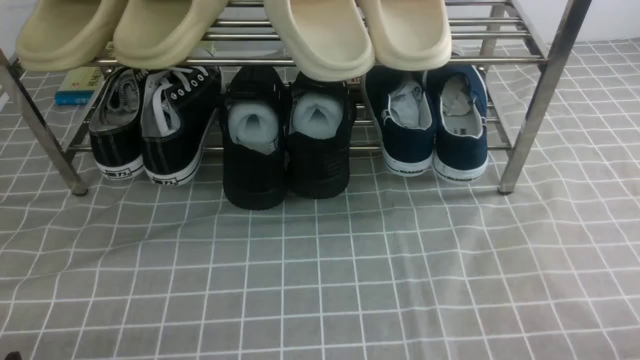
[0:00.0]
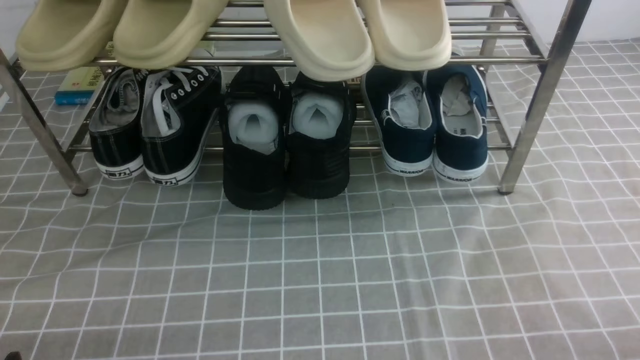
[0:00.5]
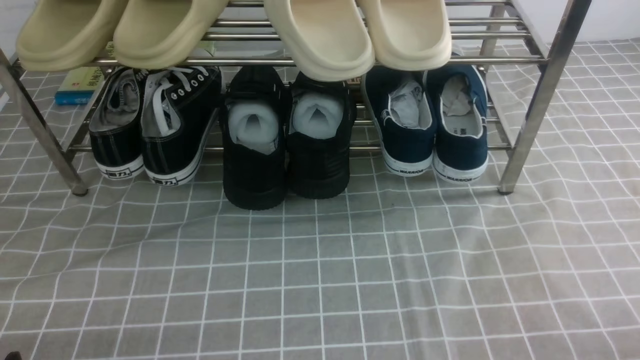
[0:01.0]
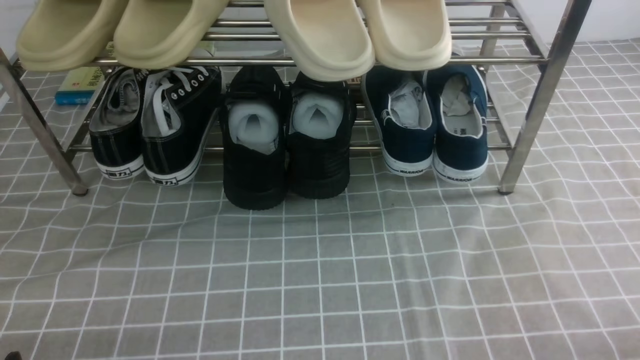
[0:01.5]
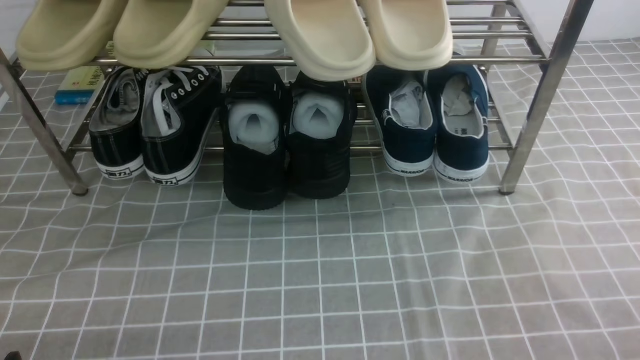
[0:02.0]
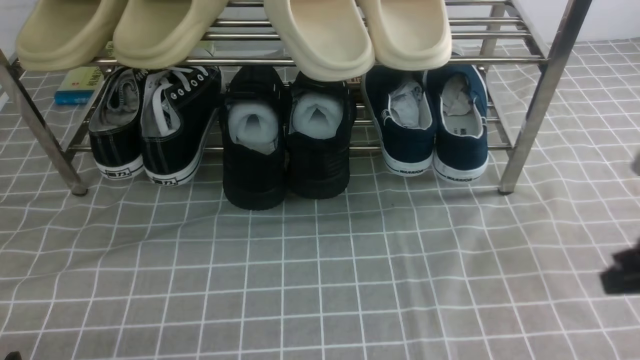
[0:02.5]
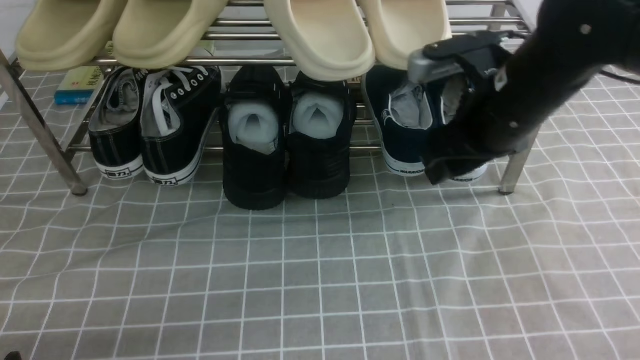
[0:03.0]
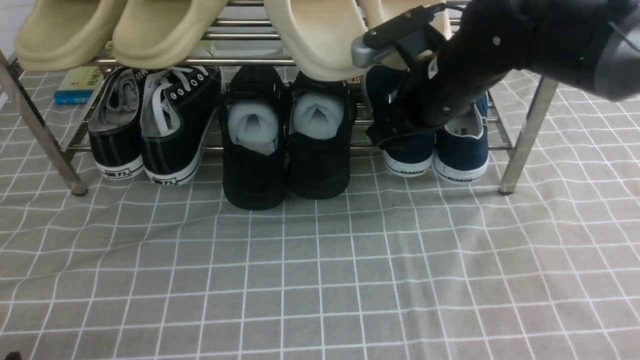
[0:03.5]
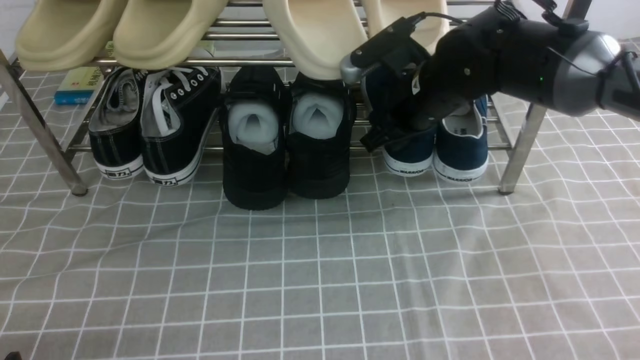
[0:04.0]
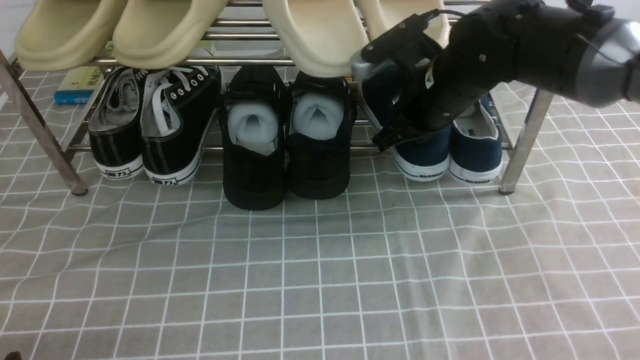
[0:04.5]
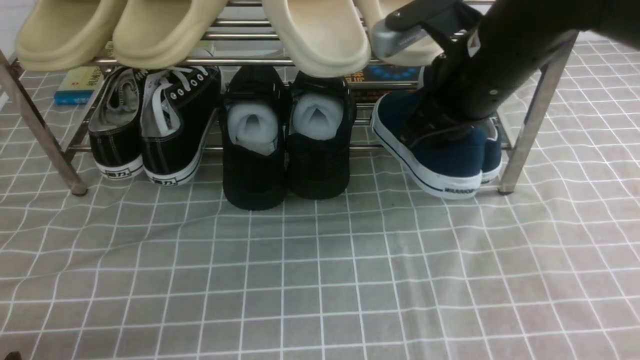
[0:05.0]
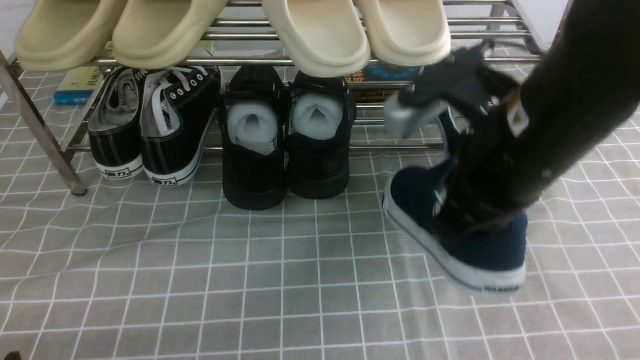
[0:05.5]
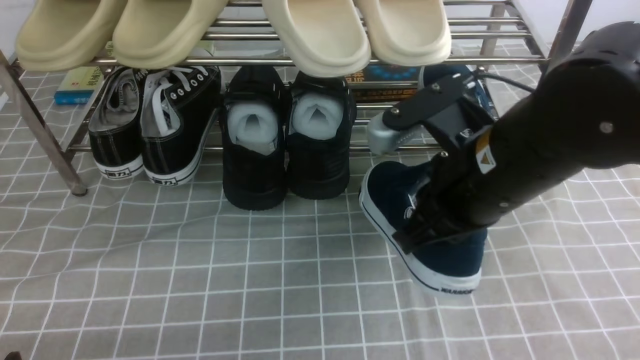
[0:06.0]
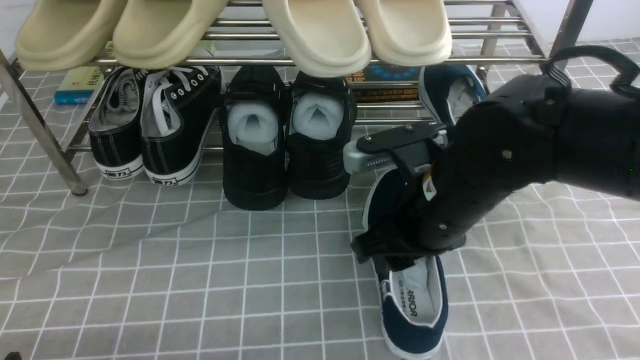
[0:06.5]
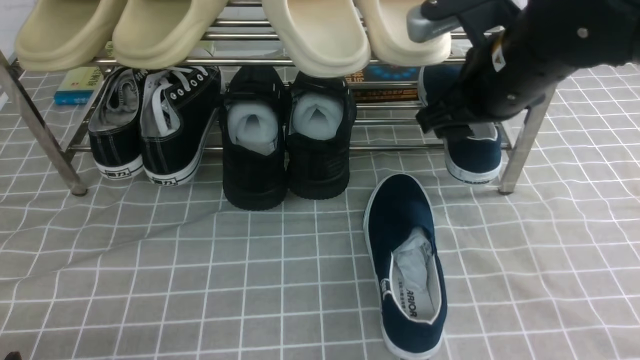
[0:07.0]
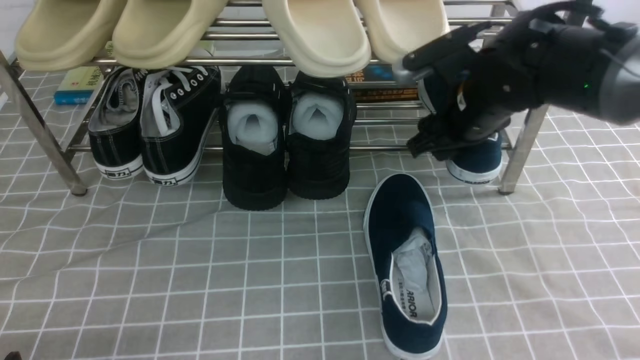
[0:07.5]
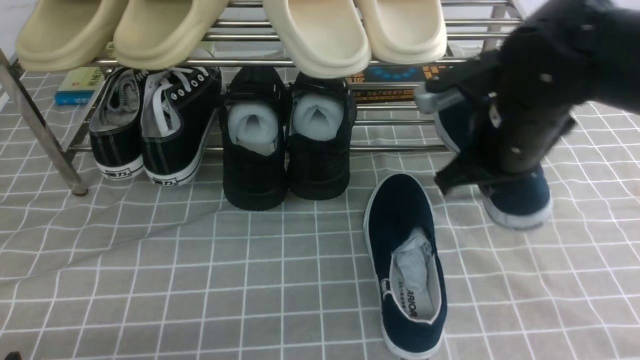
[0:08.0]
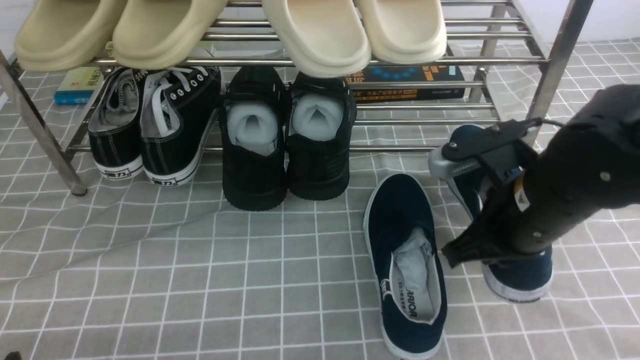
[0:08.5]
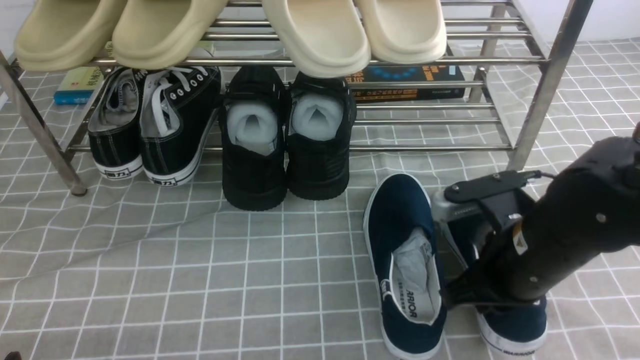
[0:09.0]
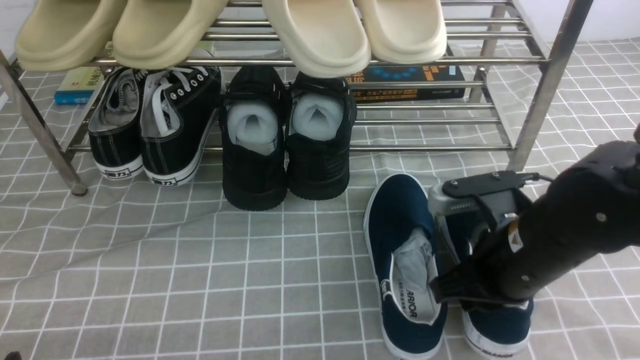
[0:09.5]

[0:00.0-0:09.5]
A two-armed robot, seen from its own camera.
Step, 0:00.0 to 0:04.5: use the right arm to clamp a shoe on the right side of the shoe rack.
Step, 0:05.0 to 0:06.5: use the right arm to take out the clamped shoe from the shoe rack and put it down.
Step, 0:07.0 to 0:07.5: use the right arm to clamp a shoe on the right side of the shoe rack.
0:00.0 to 0:02.0: The right gripper travels upward by some 5 cm.
0:02.0 to 0:04.0: The right gripper goes approximately 40 cm forward and to the left, and opens up.
0:04.0 to 0:05.5: The right gripper is displaced backward and upward by some 20 cm, and closes its fingers.
0:05.5 to 0:07.5: The right gripper heads forward and downward, covering roughly 15 cm, and opens.
0:07.5 to 0:09.5: The right gripper travels backward by some 15 cm, and closes up.

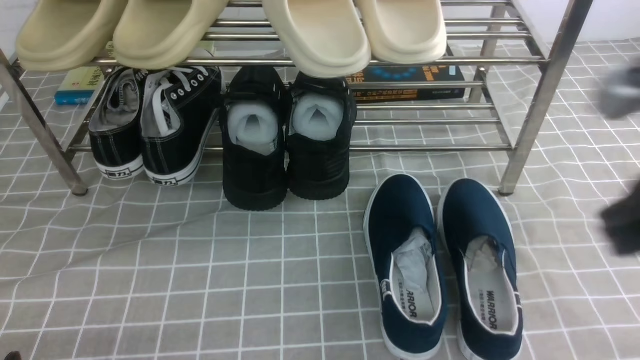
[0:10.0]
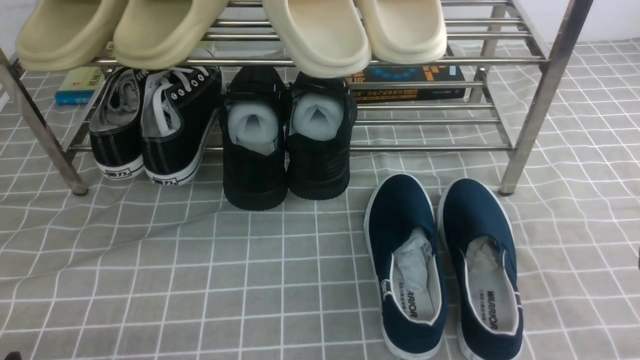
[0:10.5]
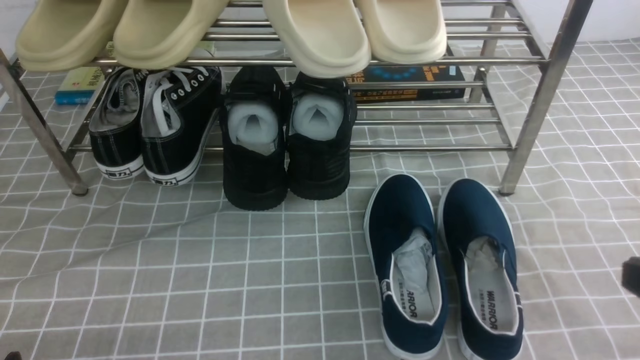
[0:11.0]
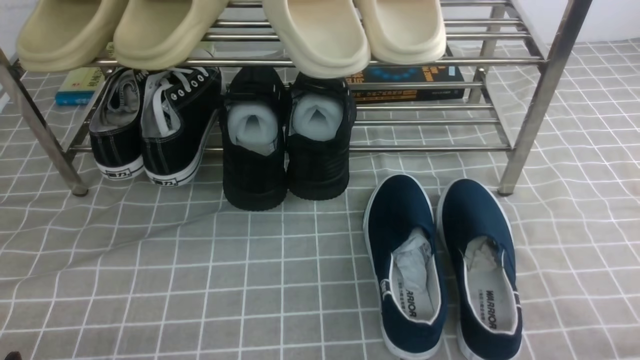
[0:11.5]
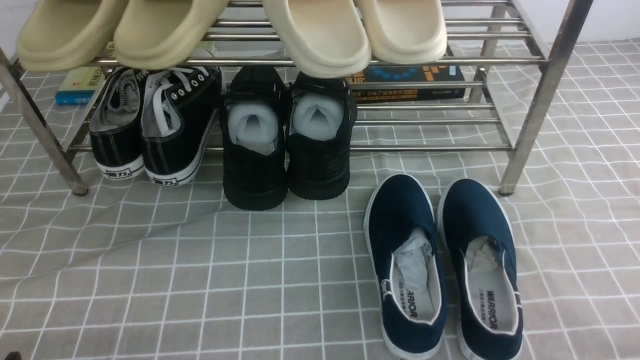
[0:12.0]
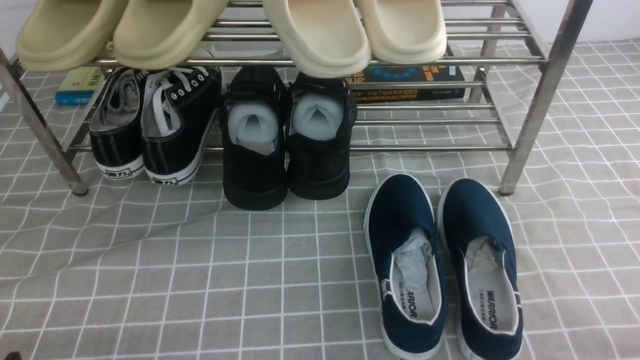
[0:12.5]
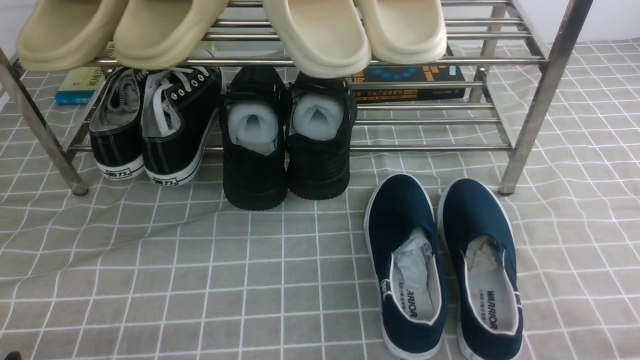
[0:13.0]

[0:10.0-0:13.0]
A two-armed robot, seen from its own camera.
0:10.0 to 0:11.5: The right gripper is displaced downward, backward and to the right by approximately 20 cm.

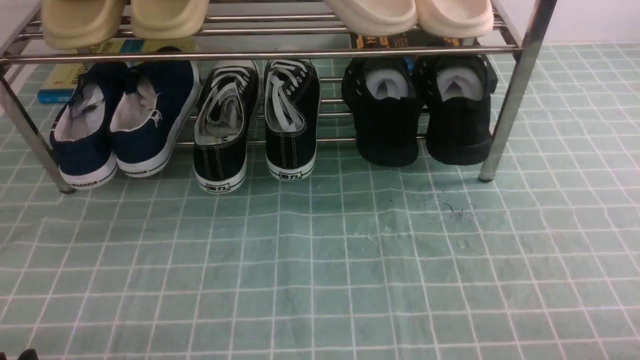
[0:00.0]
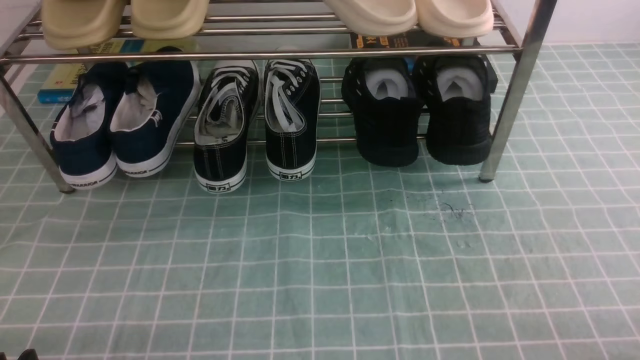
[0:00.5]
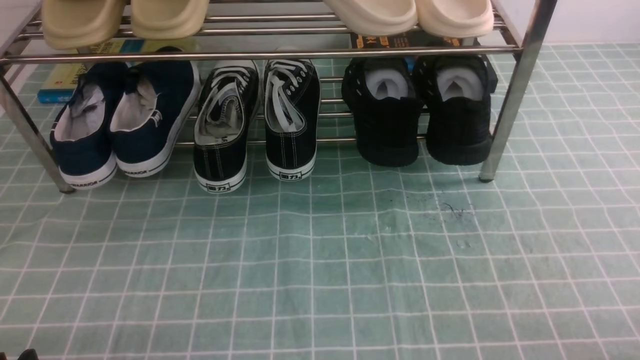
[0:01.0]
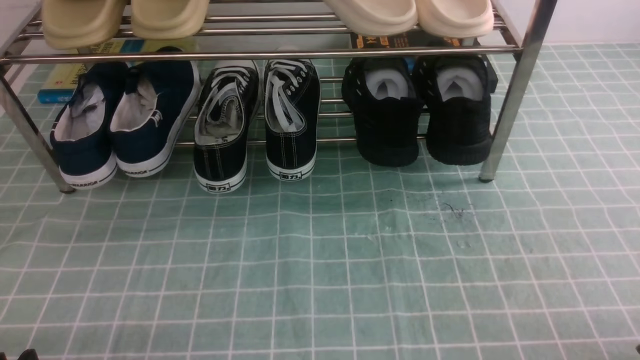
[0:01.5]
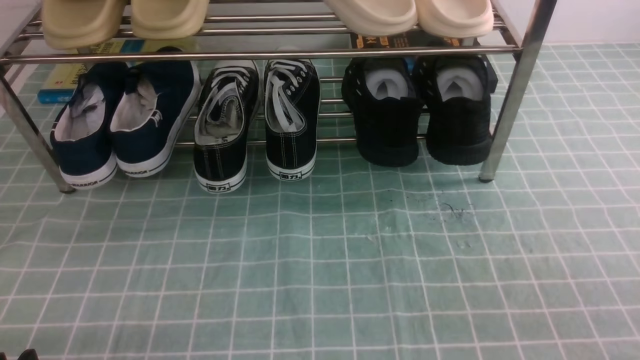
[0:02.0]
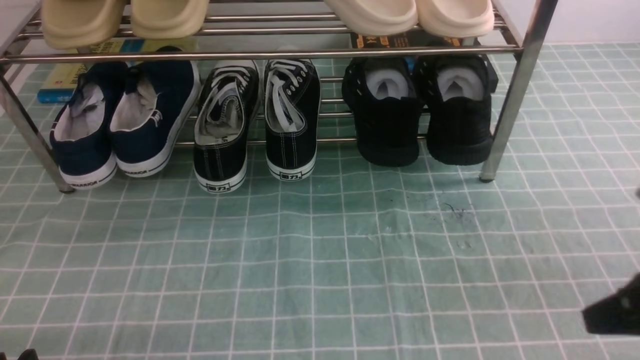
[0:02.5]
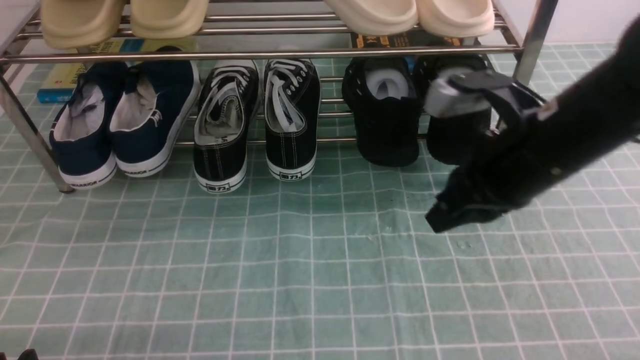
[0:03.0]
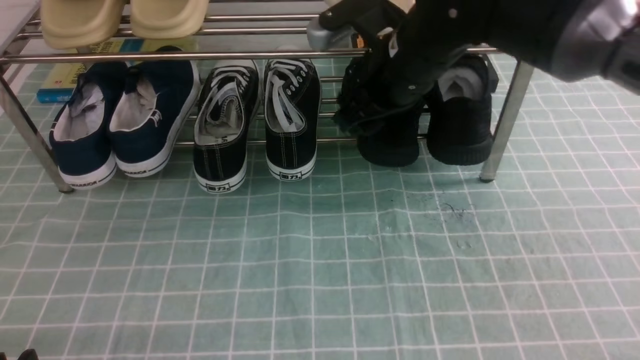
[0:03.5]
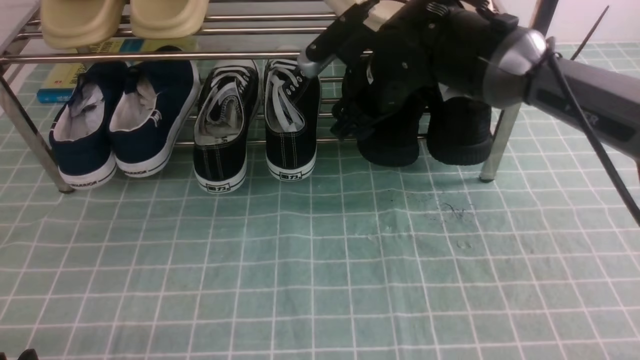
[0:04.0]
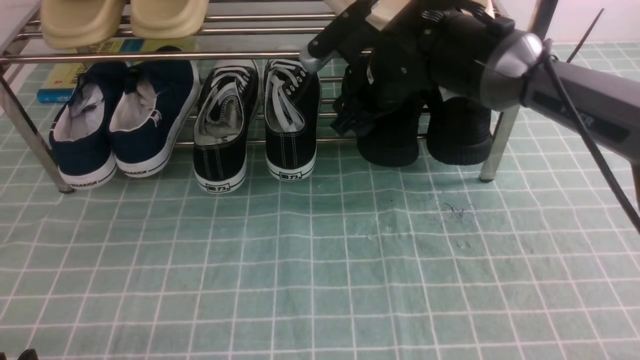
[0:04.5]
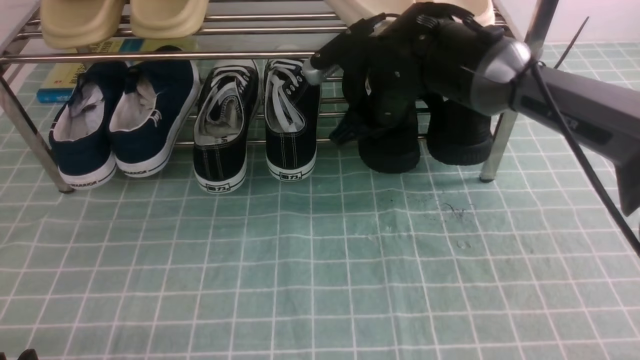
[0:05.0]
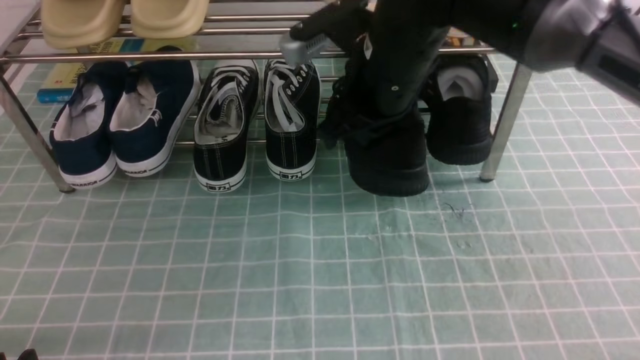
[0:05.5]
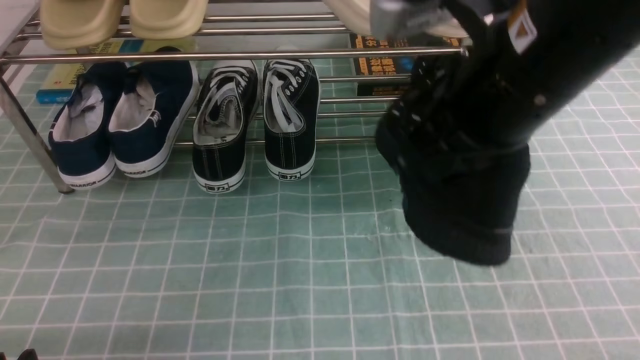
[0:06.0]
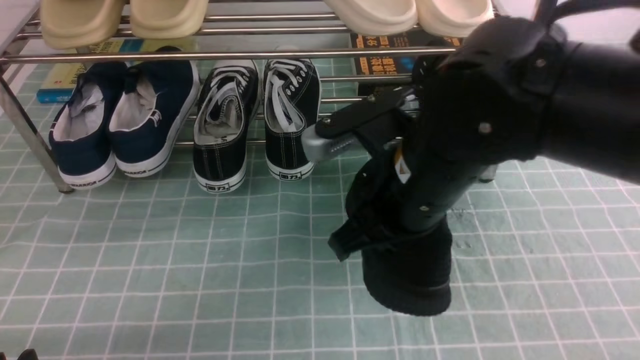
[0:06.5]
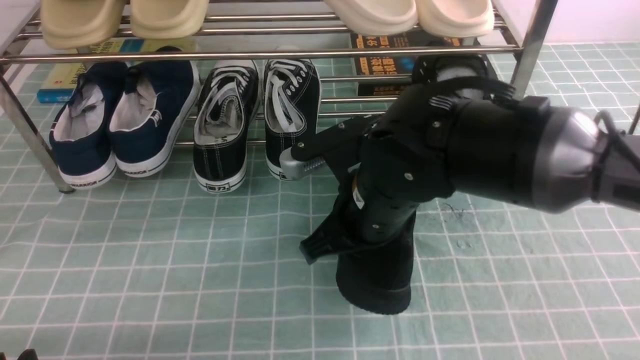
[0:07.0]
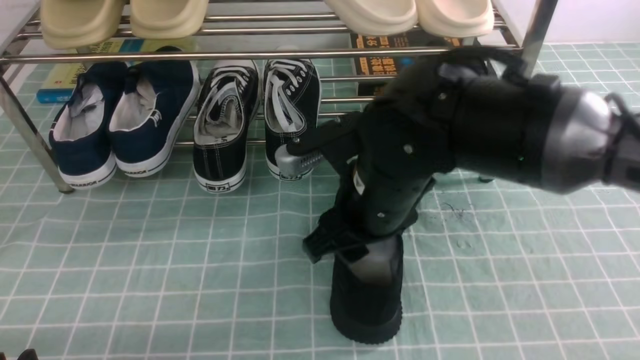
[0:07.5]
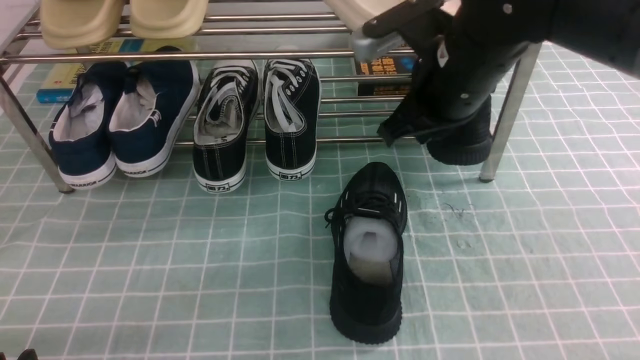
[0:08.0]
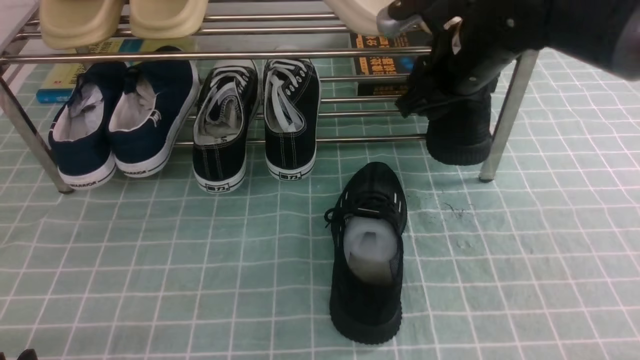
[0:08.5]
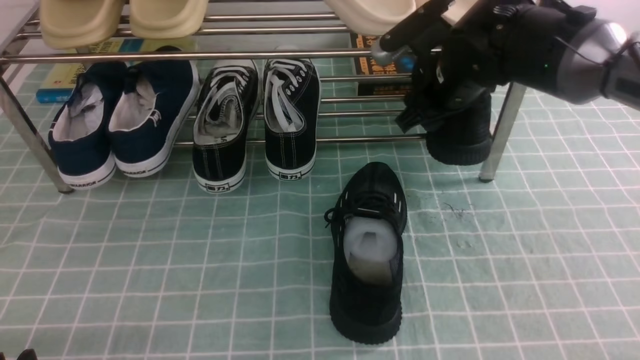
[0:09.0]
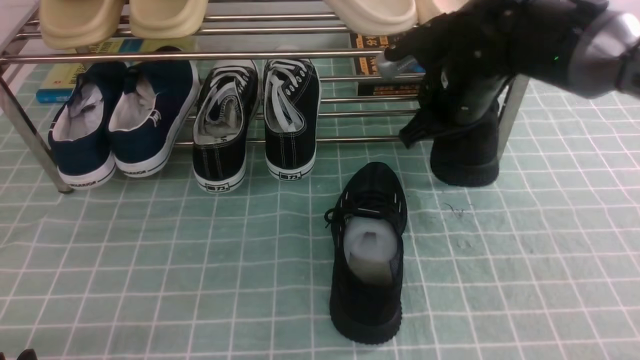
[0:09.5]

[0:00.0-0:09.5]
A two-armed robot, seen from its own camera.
Step, 0:00.0 to 0:04.5: use the right arm to clamp a shoe on the right side of the shoe rack.
Step, 0:05.0 to 0:07.5: use the right arm to take out the clamped shoe from the shoe rack and put it down.
Step, 0:08.0 to 0:09.0: use the right arm to clamp a shoe on the right side of the shoe rack.
0:02.0 to 0:04.0: The right gripper goes approximately 40 cm forward and to the left, and opens its fingers.
0:04.0 to 0:05.5: The right gripper goes some 10 cm backward and upward, and closes its fingers.
0:05.5 to 0:07.5: The right gripper travels downward and backward by some 10 cm, and opens up.
0:07.5 to 0:09.5: The right gripper heads forward and to the right, covering roughly 15 cm, and closes.
